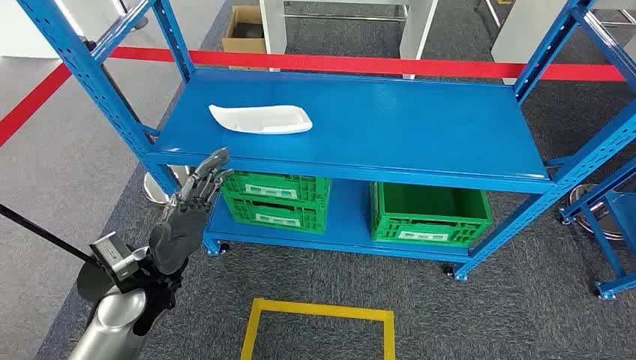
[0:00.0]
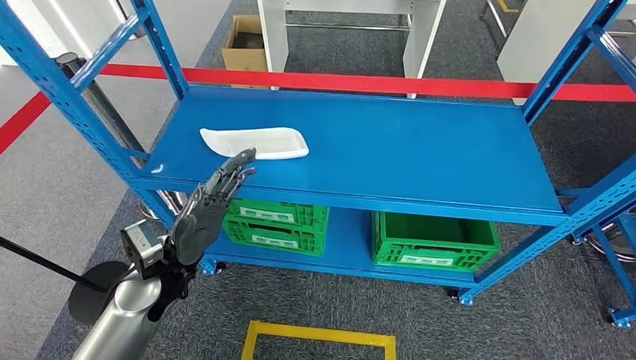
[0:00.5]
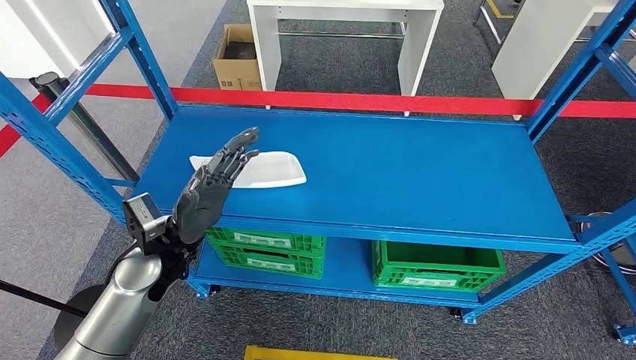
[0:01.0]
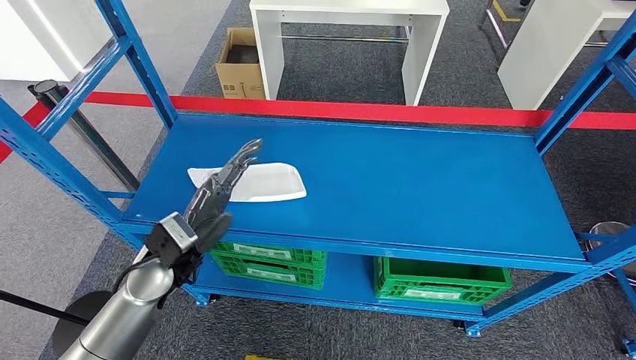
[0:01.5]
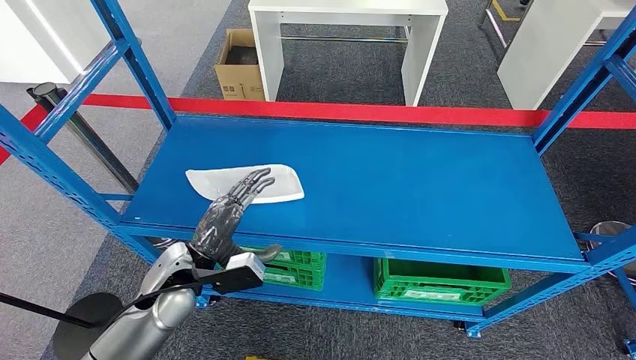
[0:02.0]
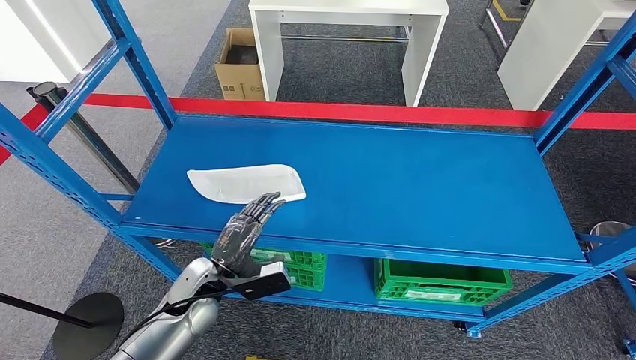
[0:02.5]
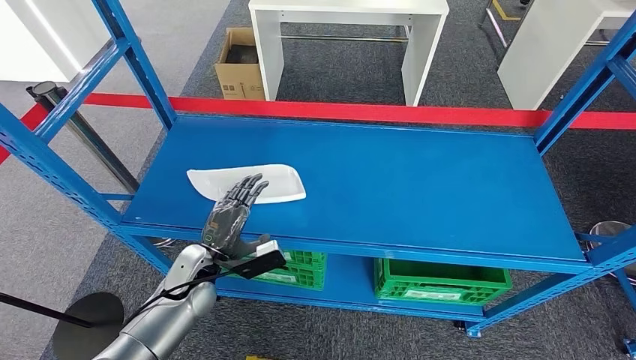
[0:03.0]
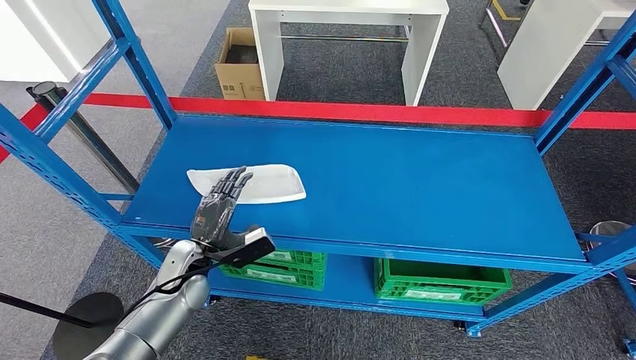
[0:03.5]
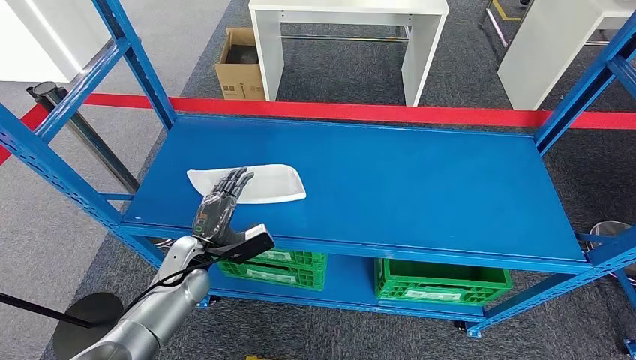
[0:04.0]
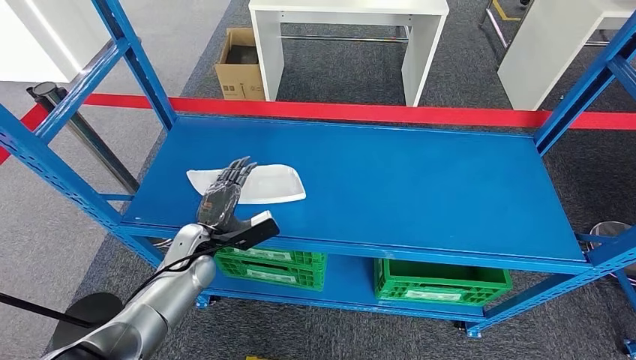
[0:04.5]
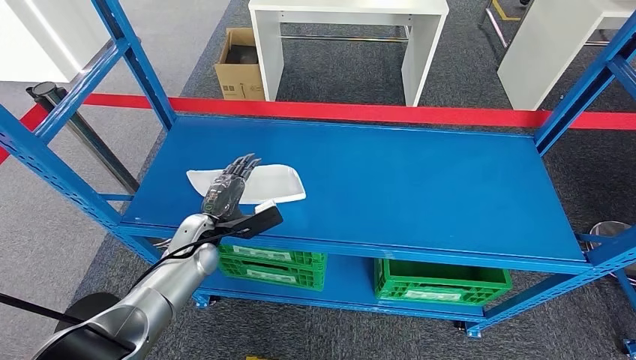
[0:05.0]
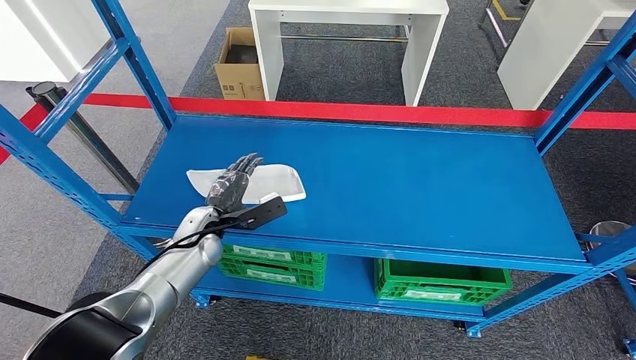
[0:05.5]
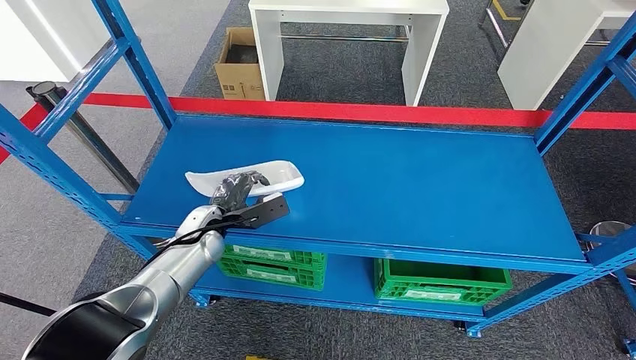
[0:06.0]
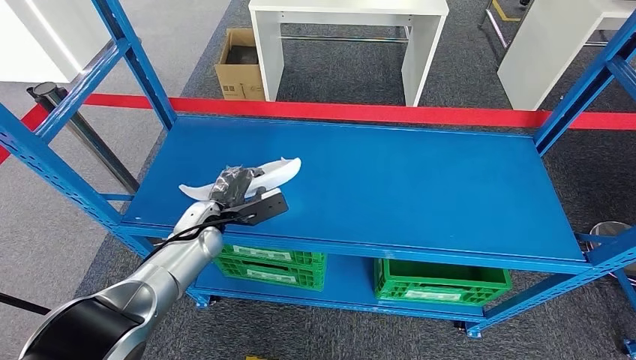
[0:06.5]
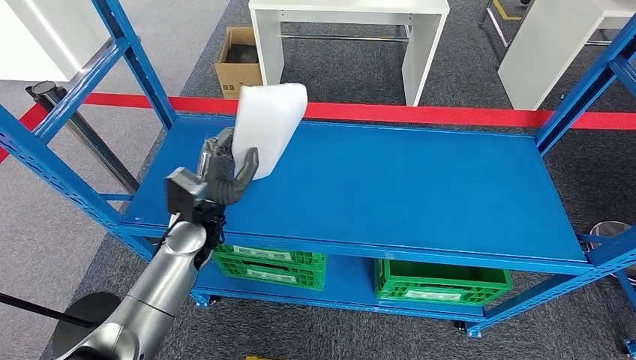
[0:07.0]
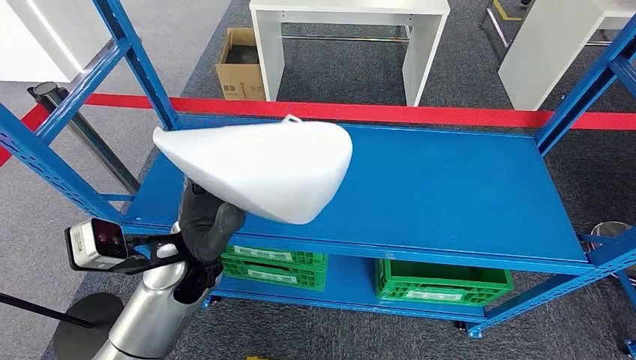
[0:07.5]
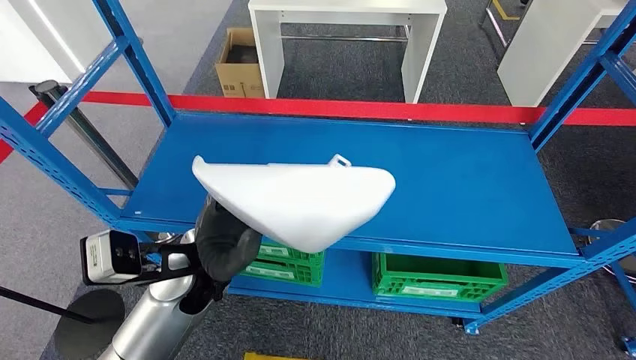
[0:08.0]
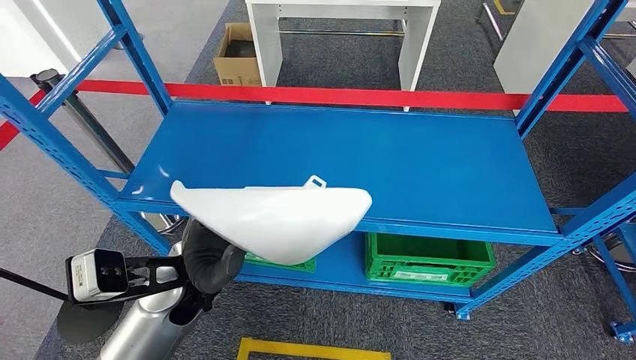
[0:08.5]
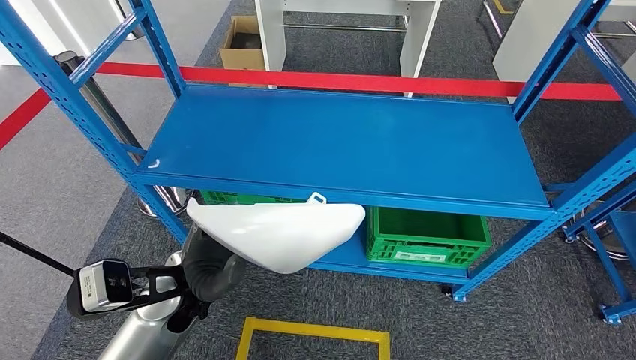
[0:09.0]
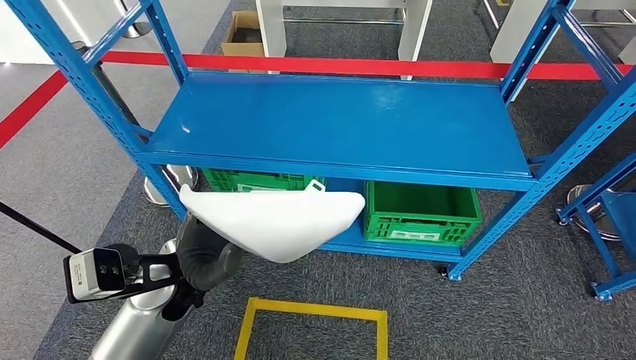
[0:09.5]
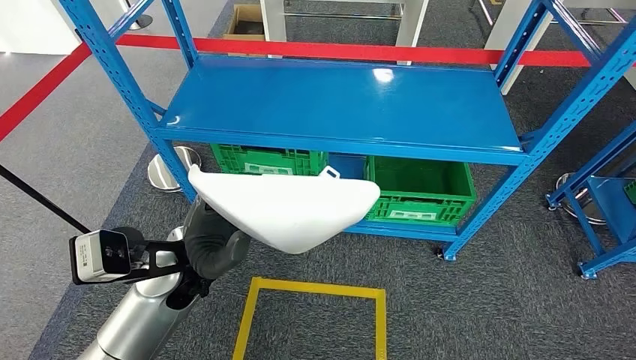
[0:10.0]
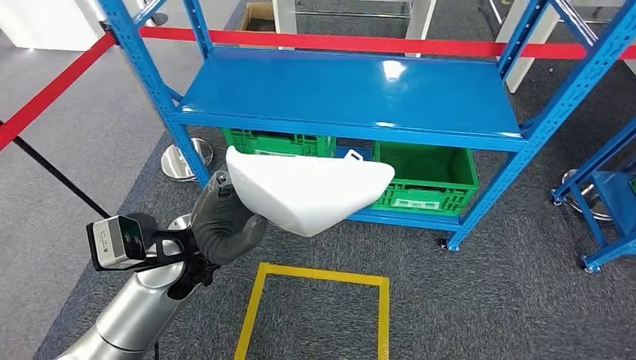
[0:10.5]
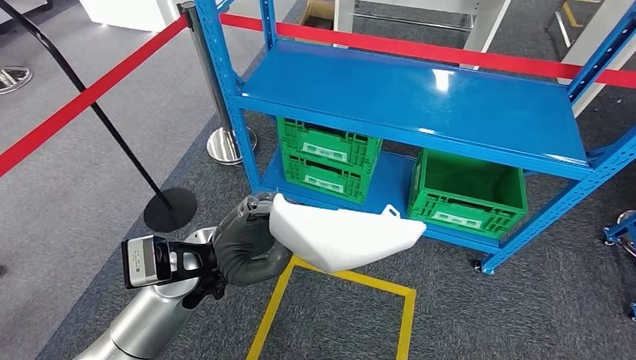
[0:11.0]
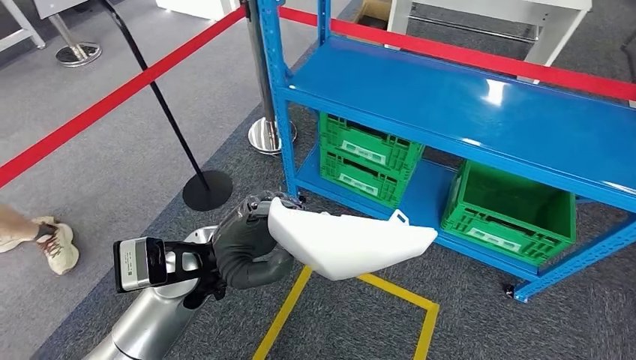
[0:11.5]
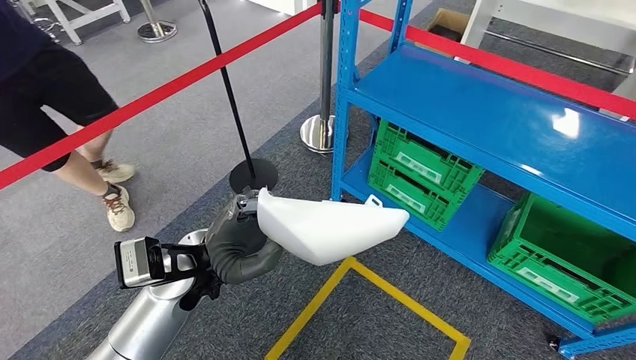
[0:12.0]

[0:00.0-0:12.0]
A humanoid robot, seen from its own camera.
Step, 0:00.0 to 0:07.0: Pick up the small component from the shelf.
0:02.0 to 0:04.0: The left hand is displaced downward and forward by some 10 cm.
0:04.0 to 0:06.0: The left hand heads forward, covering roughly 5 cm.

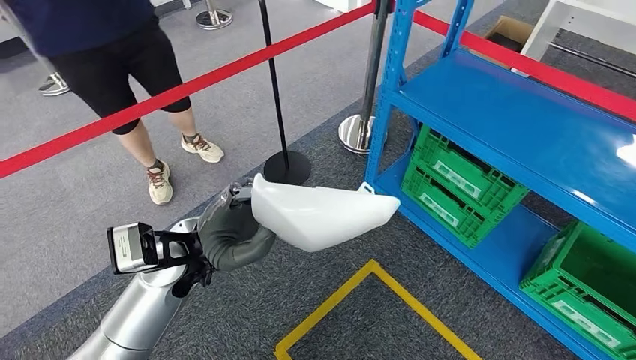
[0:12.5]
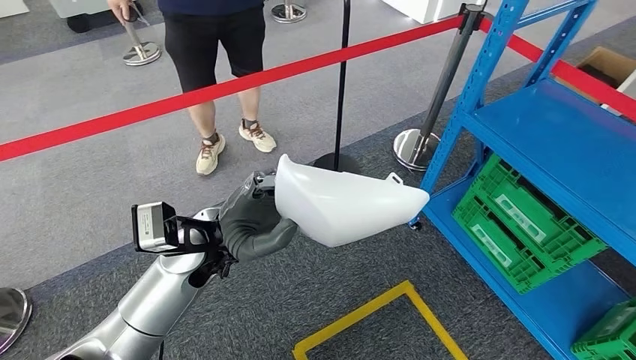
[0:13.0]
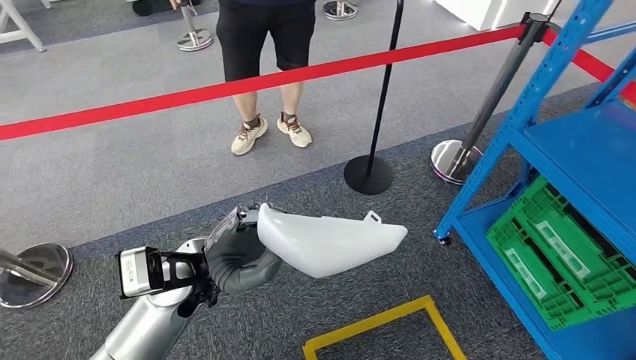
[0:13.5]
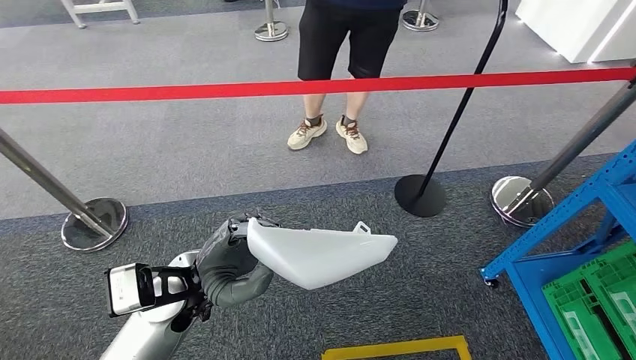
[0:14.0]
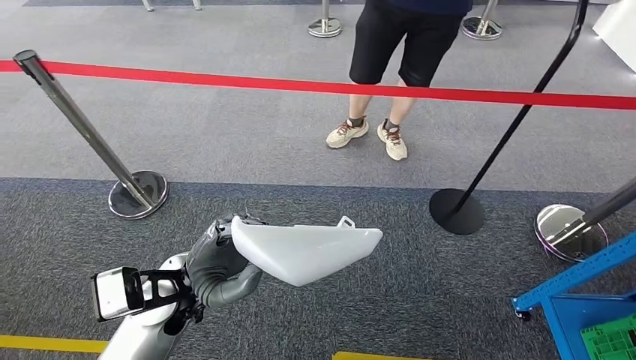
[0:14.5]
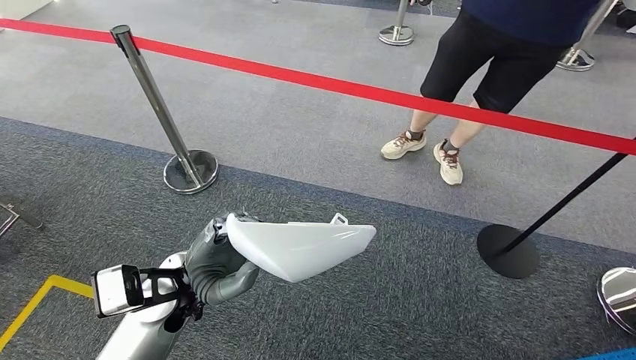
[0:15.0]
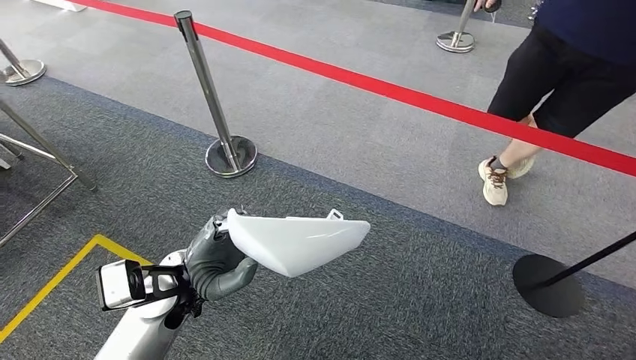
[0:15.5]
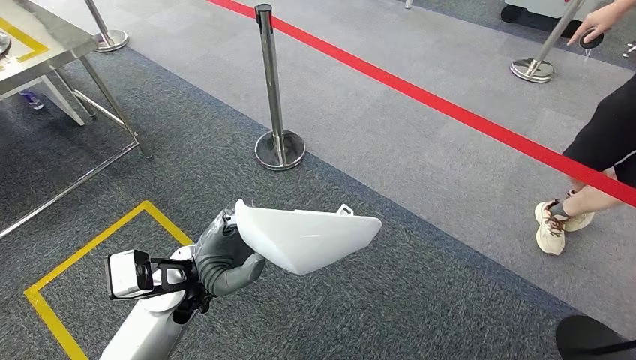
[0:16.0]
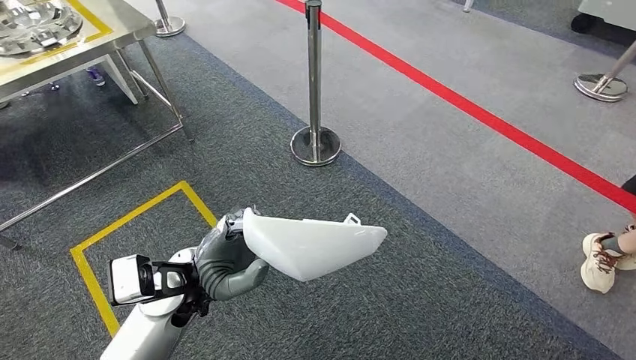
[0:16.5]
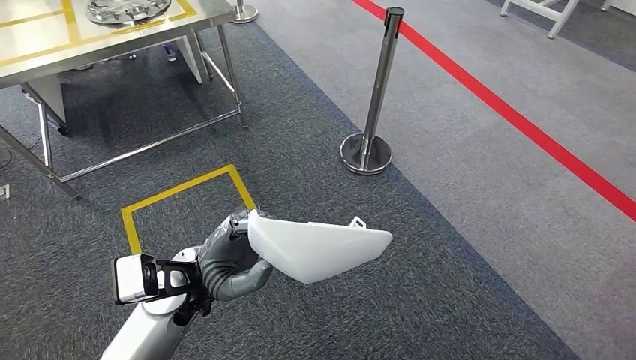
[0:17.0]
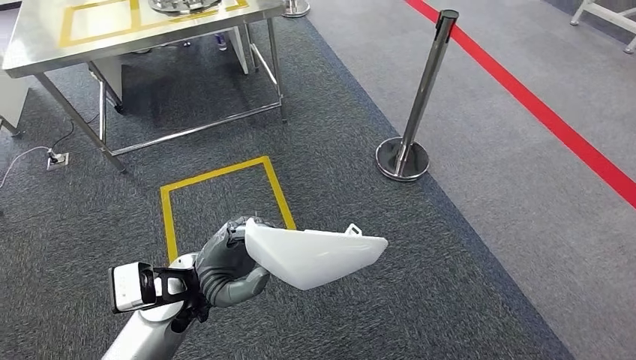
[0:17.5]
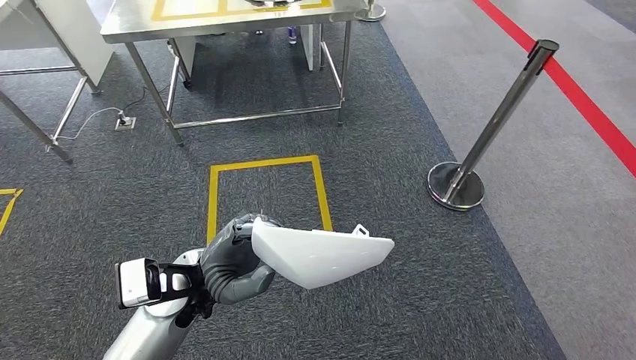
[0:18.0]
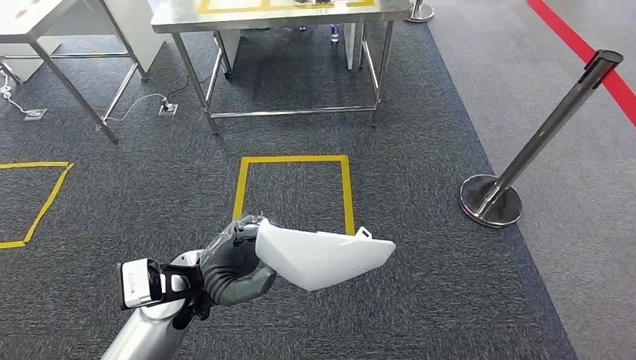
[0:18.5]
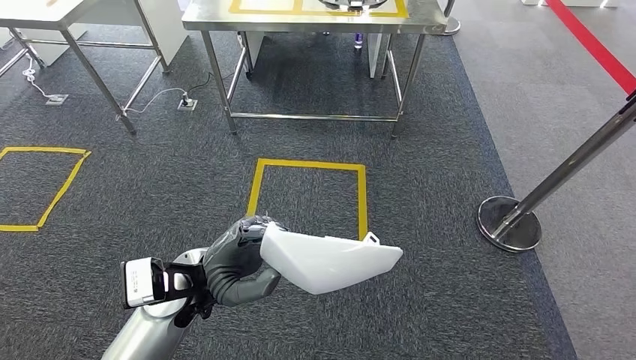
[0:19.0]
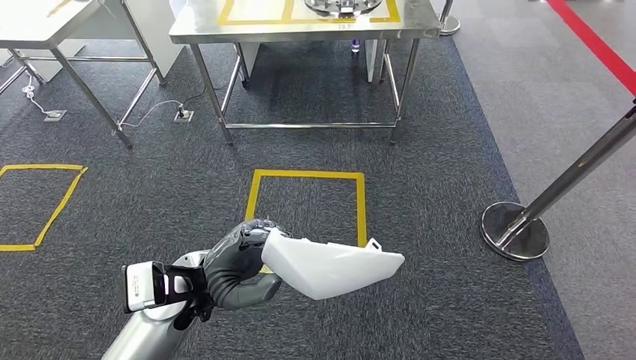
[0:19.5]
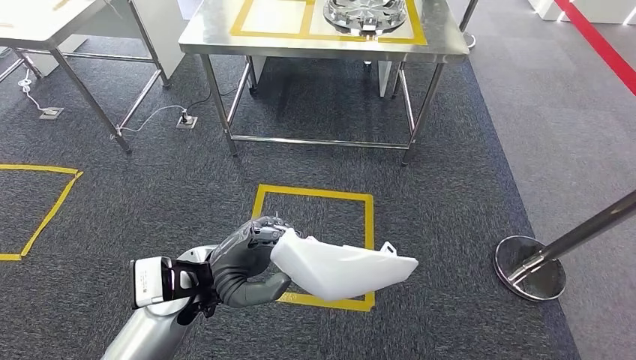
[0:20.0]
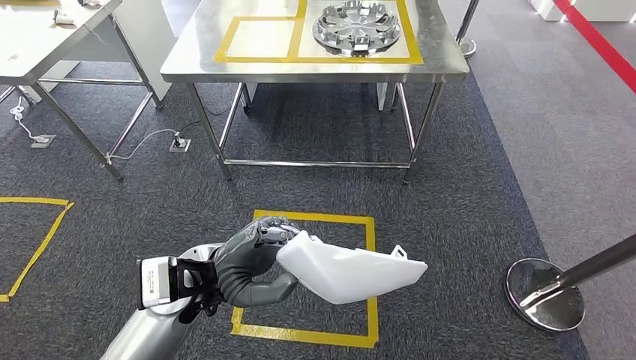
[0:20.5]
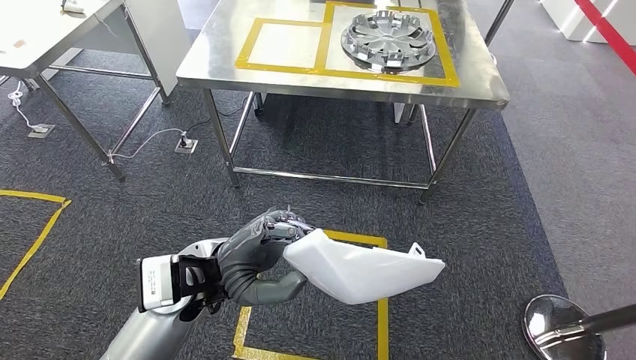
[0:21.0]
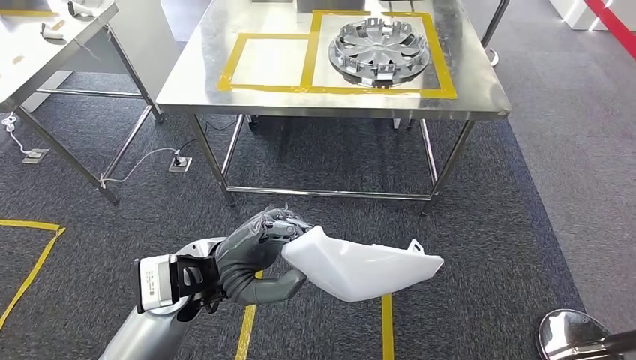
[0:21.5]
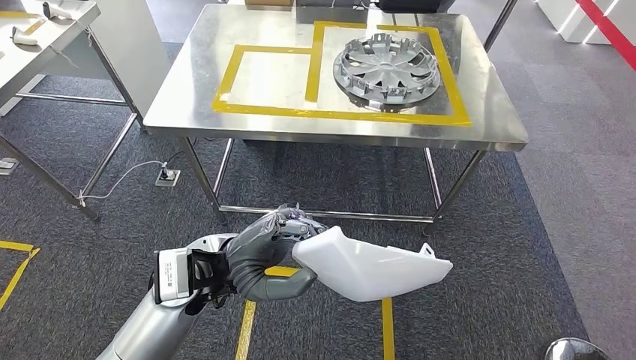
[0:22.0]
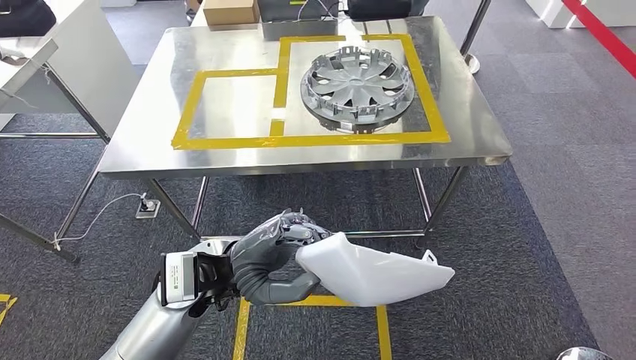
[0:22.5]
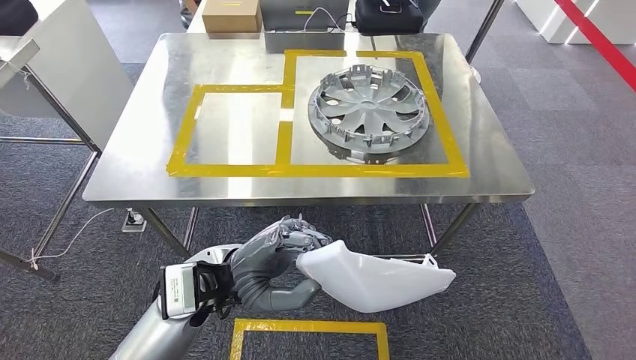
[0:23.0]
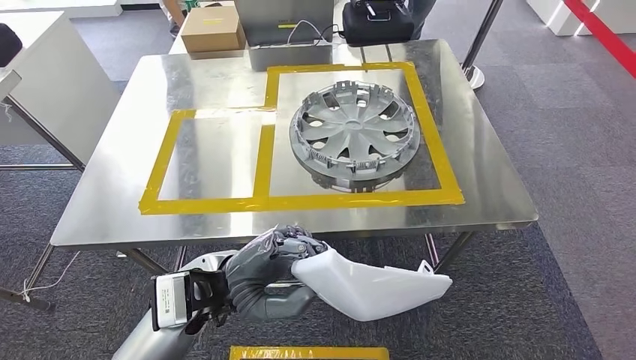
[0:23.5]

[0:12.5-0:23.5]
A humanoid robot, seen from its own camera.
Step, 0:12.5 to 0:23.5: Move the small component to the workbench.
